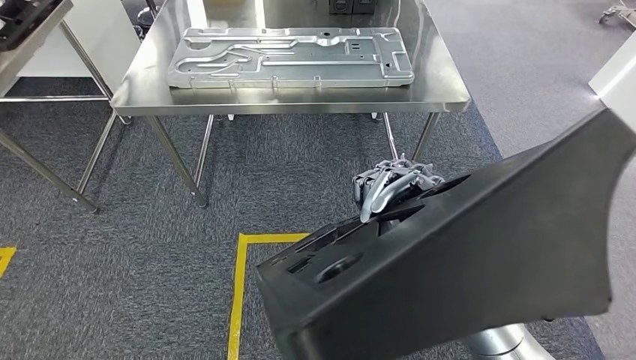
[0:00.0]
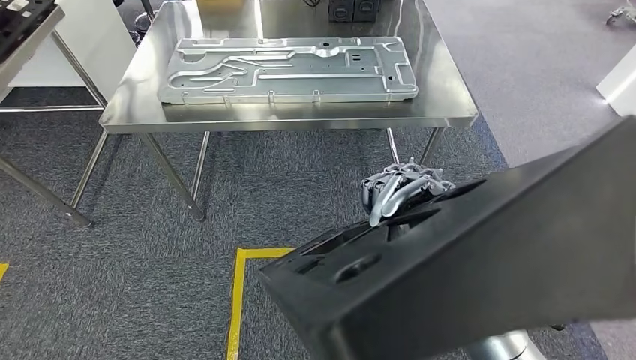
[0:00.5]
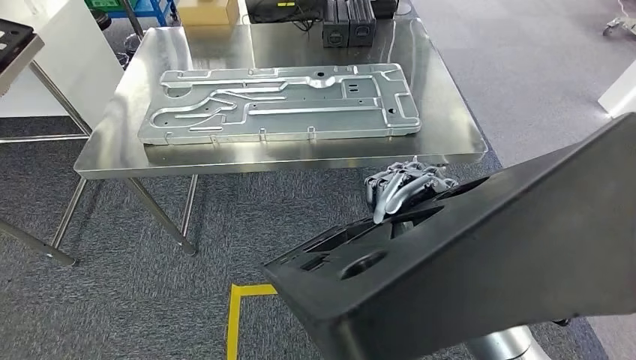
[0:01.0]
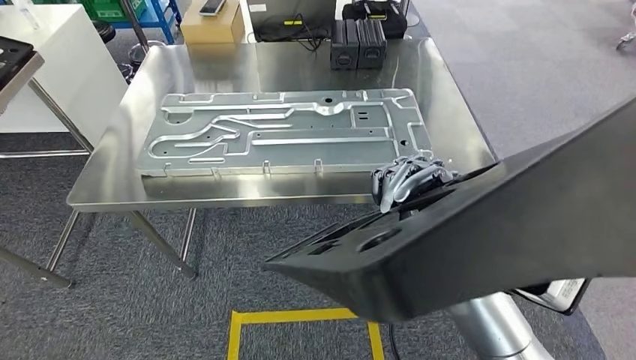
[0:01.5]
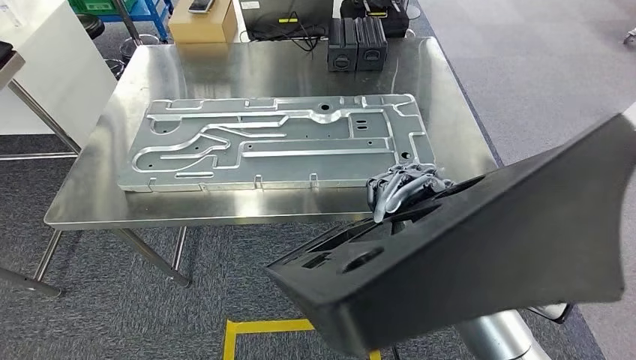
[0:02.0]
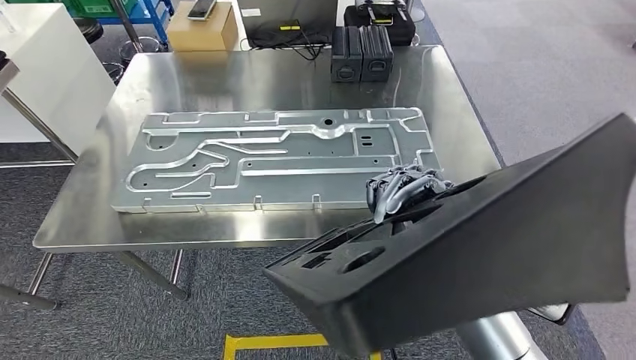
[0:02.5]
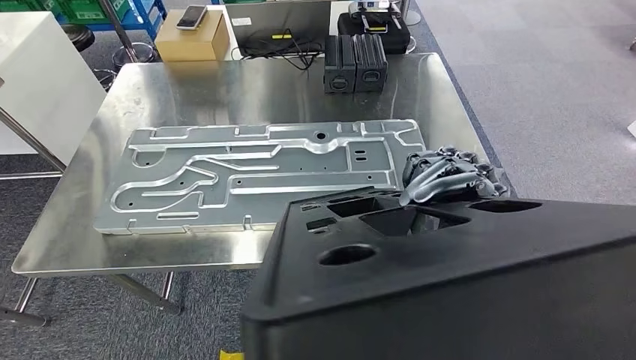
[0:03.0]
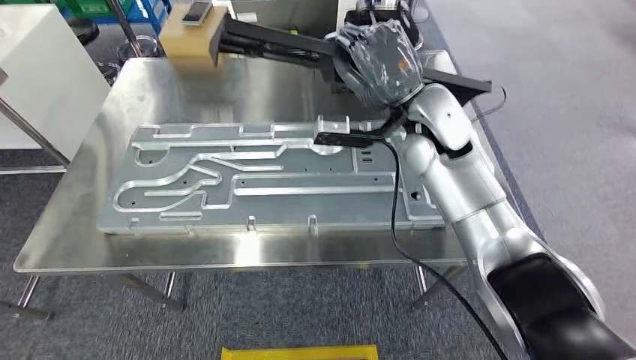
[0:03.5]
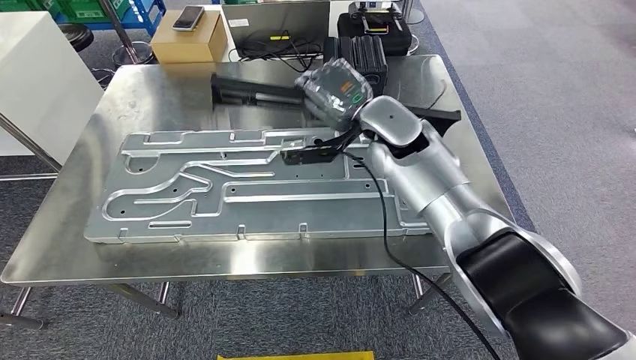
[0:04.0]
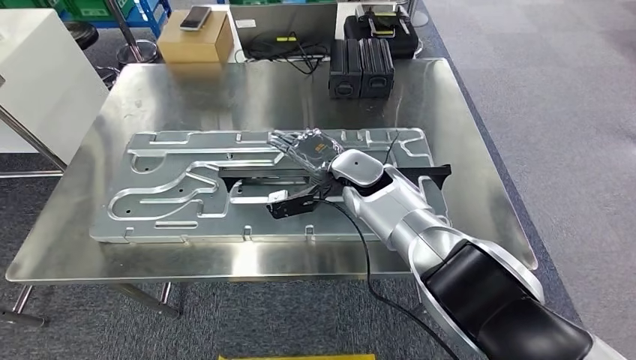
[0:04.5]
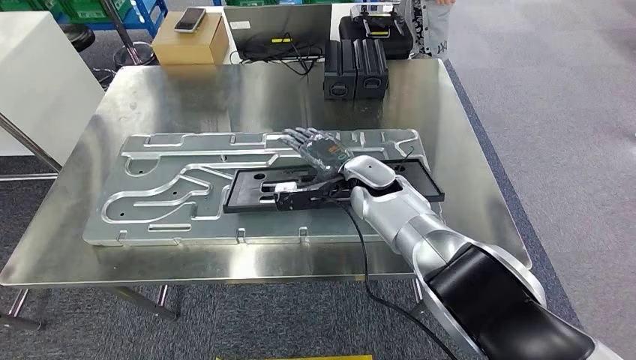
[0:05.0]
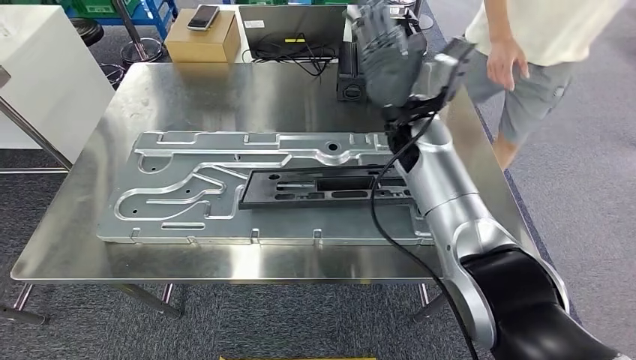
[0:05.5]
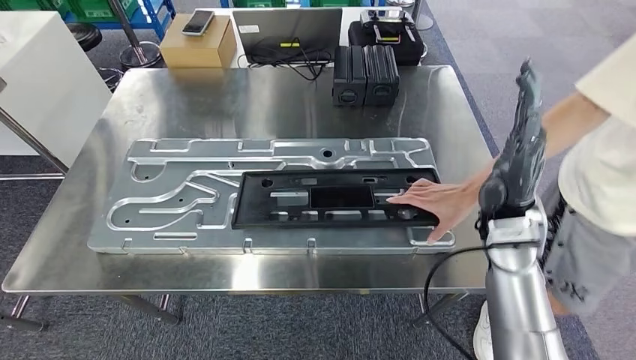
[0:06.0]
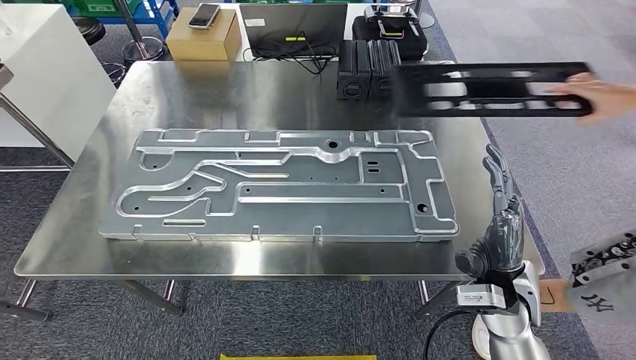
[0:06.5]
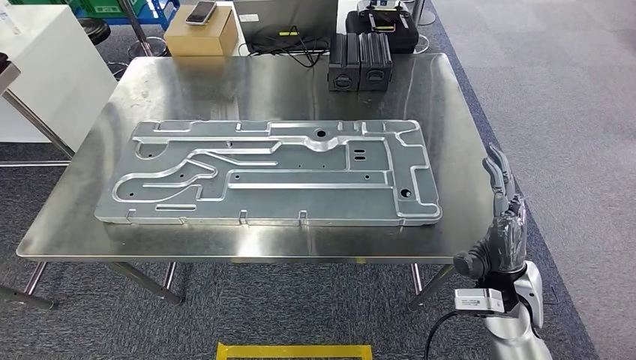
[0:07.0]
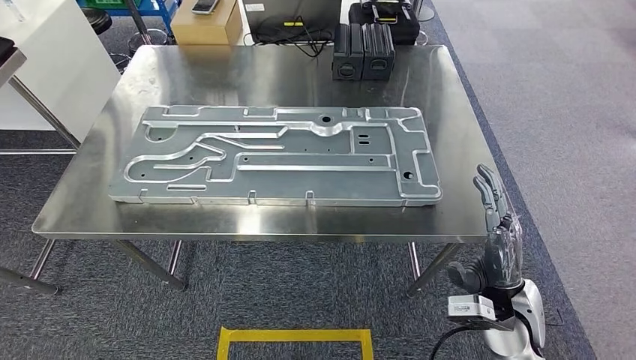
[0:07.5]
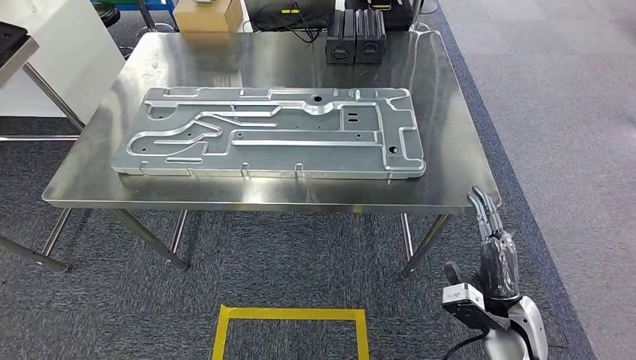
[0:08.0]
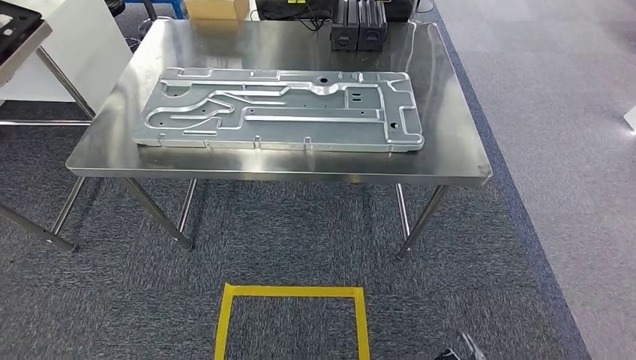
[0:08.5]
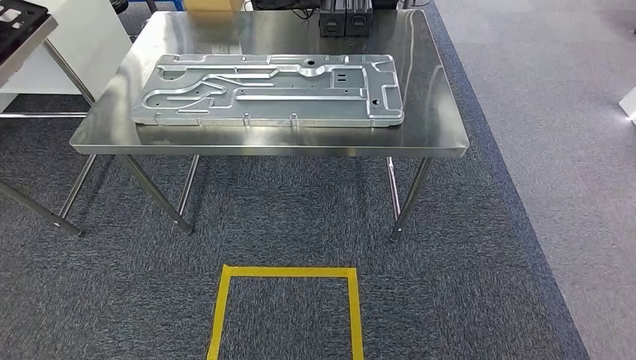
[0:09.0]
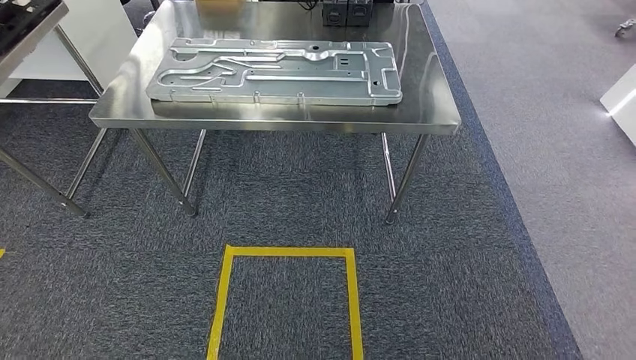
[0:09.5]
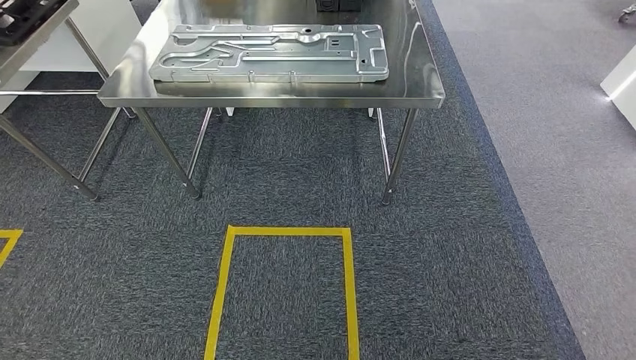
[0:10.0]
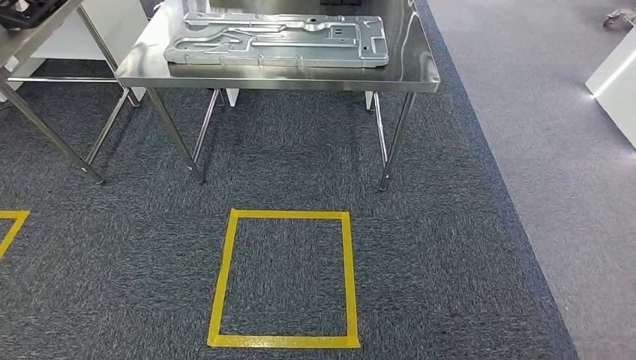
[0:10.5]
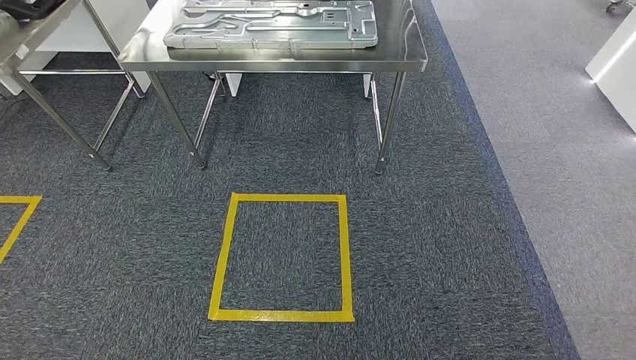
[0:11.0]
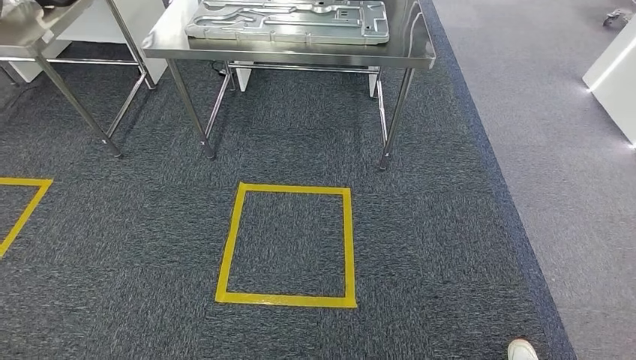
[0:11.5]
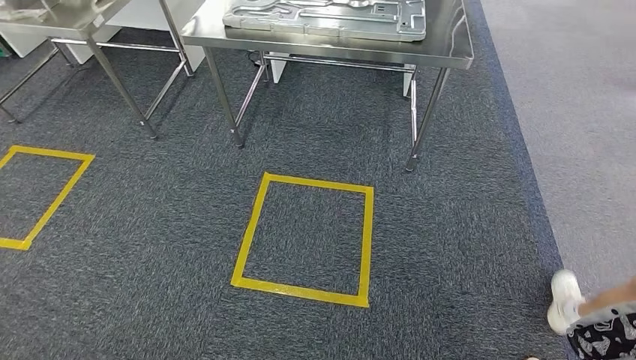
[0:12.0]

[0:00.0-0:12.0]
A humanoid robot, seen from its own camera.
Step, 0:00.0 to 0:02.5: Move the large material to the workbench.
Step, 0:05.0 to 0:07.0: Insert the large material into the corresponding slot on the workbench.

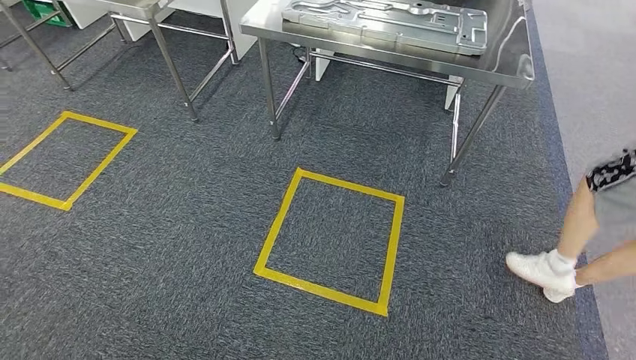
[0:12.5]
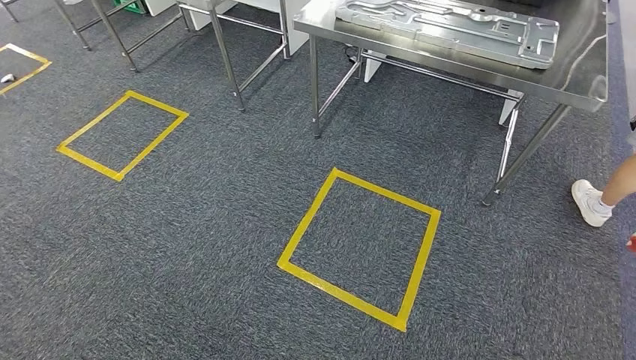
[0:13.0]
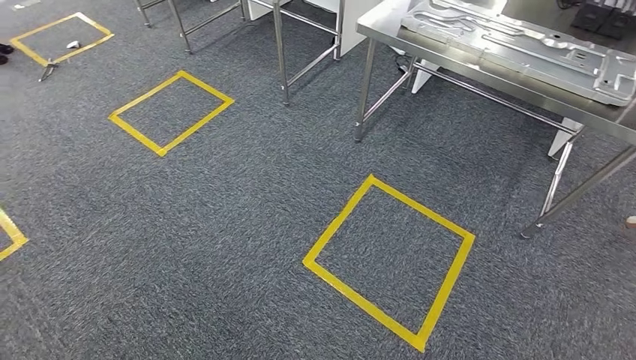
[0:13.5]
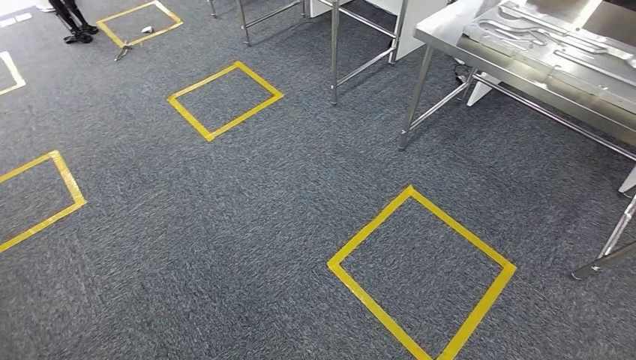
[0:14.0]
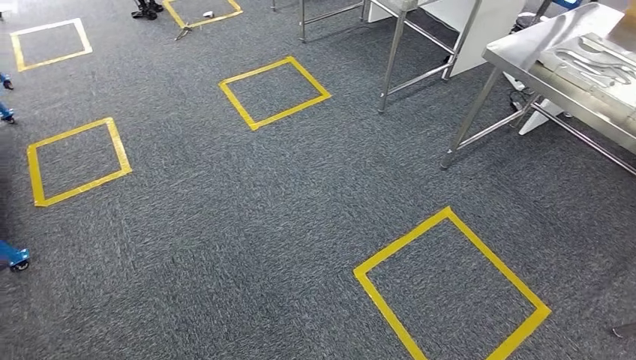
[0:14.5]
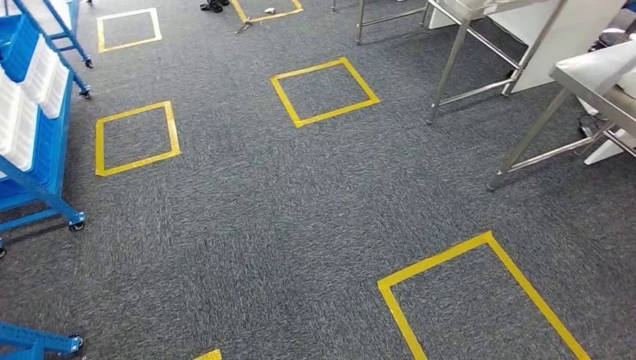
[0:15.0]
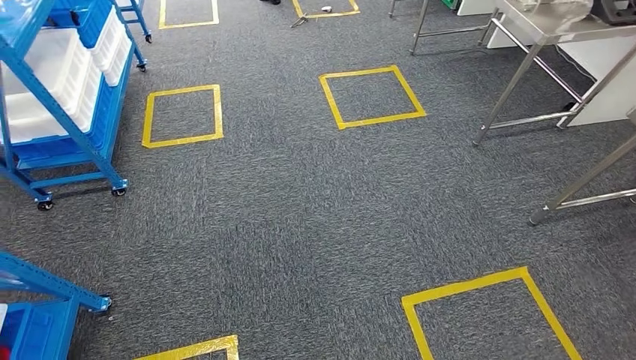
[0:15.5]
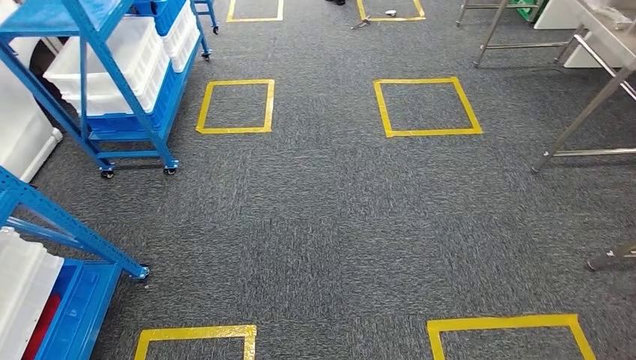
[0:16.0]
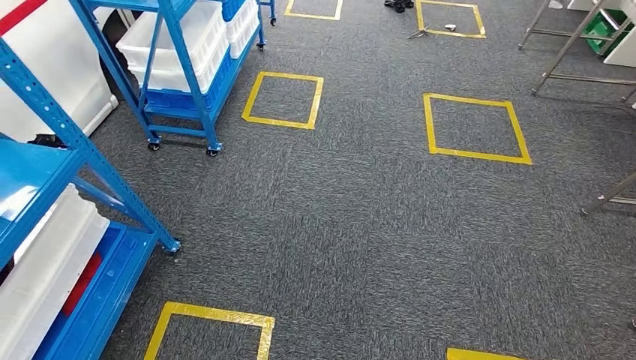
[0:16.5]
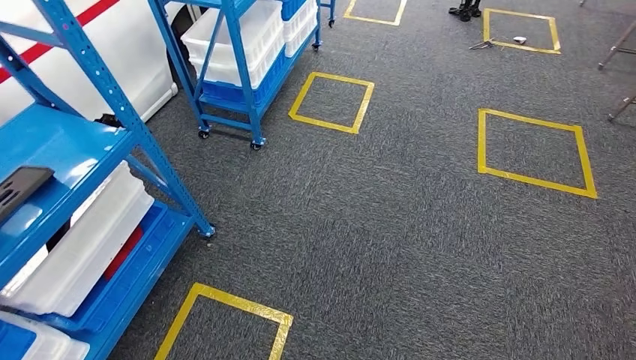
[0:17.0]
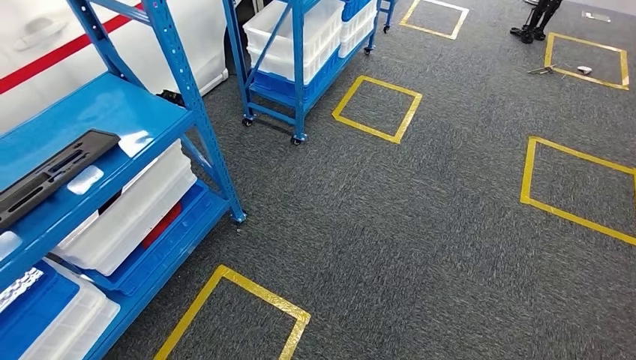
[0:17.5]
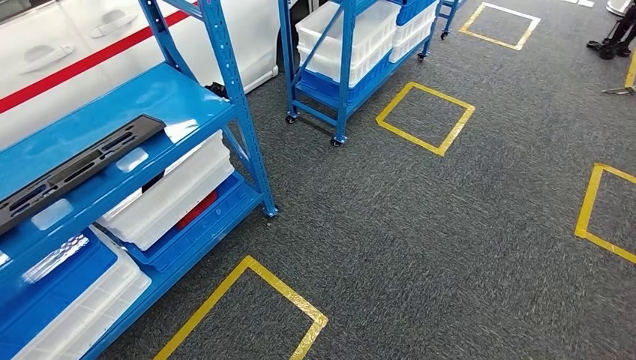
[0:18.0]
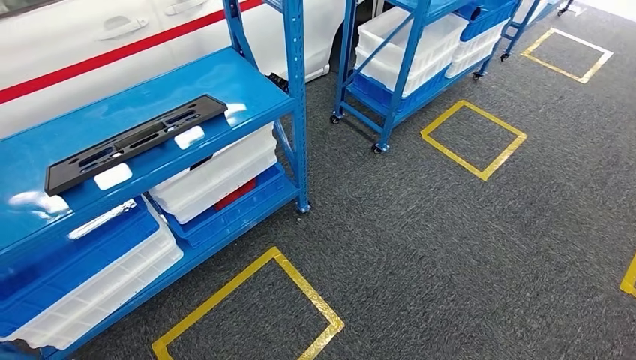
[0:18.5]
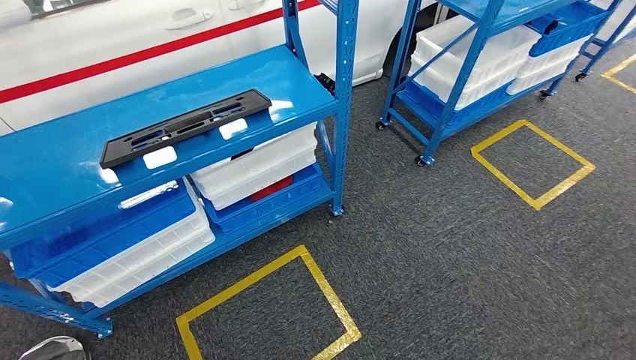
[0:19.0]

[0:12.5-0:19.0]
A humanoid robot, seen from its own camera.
Step, 0:12.5 to 0:19.0: Move to the initial position of the shelf.
